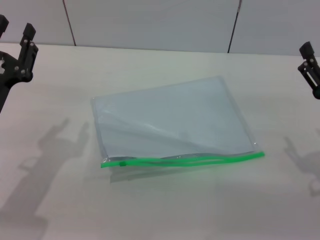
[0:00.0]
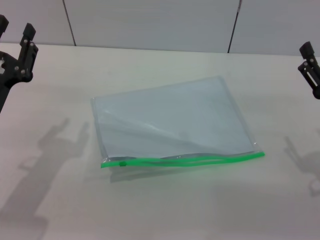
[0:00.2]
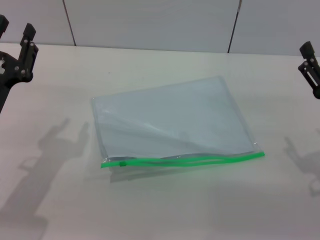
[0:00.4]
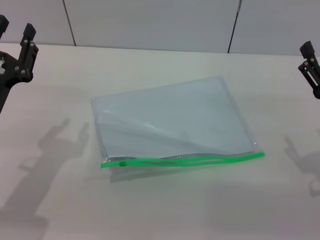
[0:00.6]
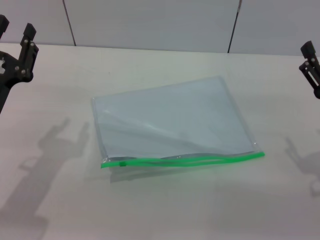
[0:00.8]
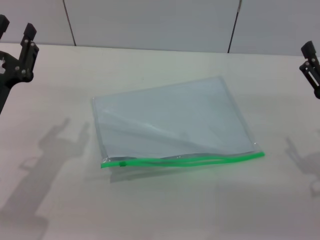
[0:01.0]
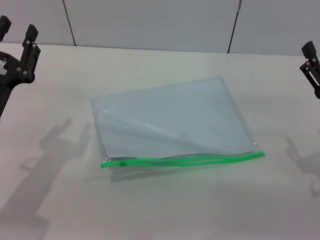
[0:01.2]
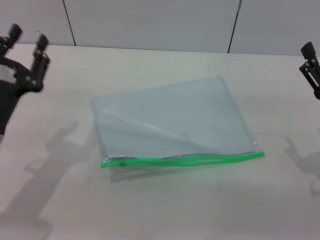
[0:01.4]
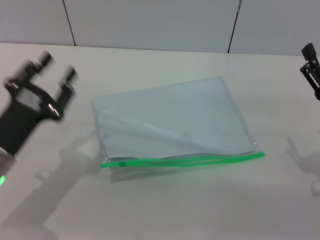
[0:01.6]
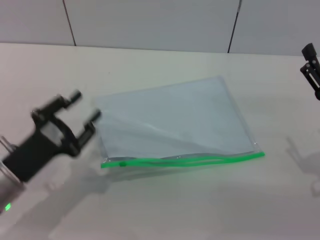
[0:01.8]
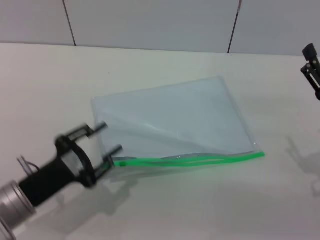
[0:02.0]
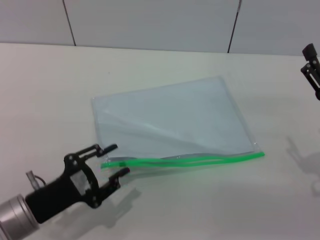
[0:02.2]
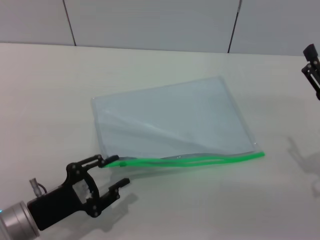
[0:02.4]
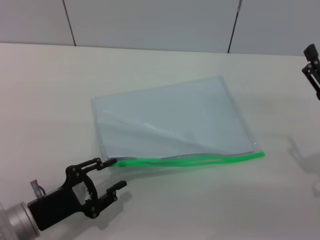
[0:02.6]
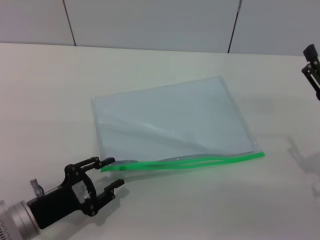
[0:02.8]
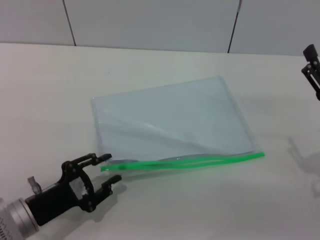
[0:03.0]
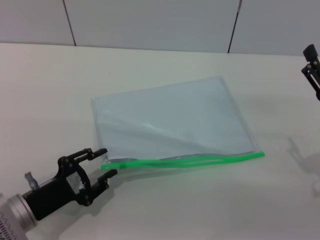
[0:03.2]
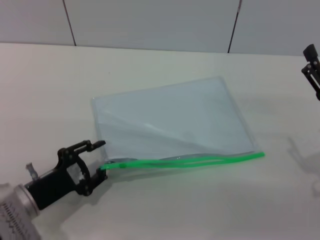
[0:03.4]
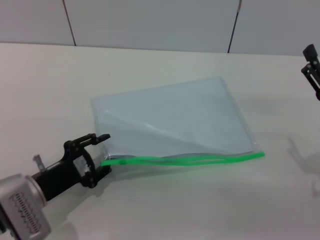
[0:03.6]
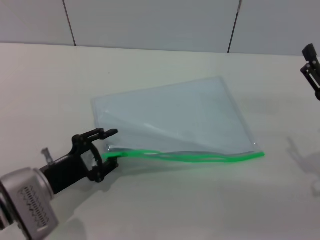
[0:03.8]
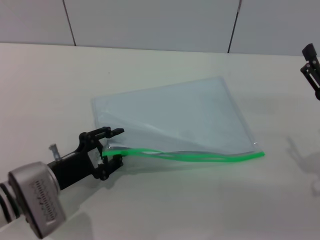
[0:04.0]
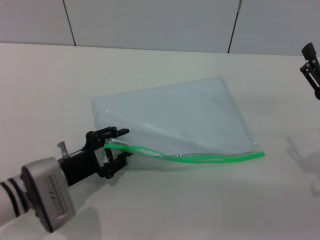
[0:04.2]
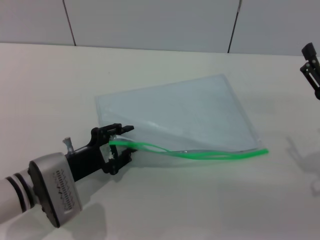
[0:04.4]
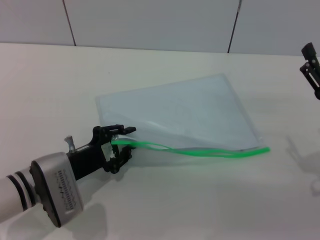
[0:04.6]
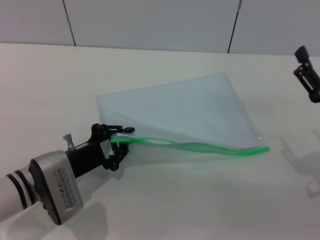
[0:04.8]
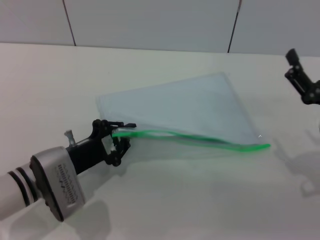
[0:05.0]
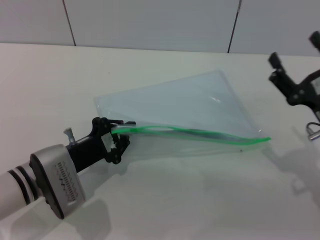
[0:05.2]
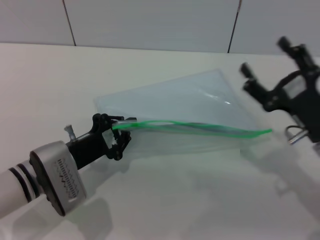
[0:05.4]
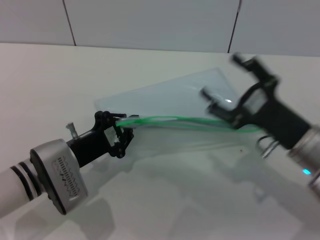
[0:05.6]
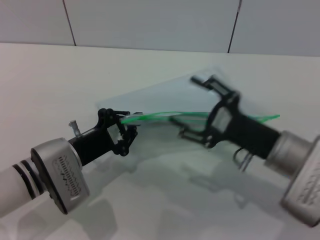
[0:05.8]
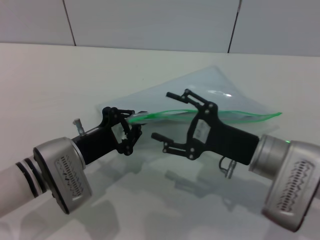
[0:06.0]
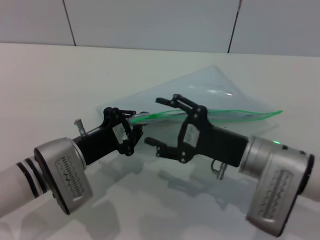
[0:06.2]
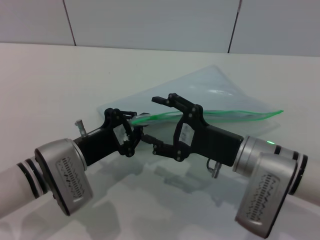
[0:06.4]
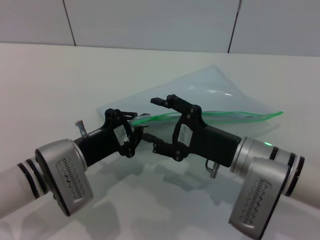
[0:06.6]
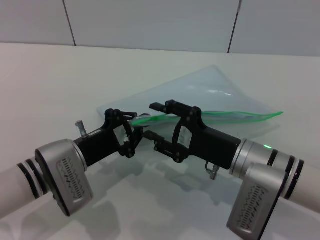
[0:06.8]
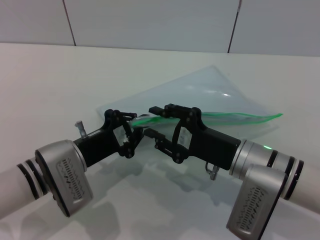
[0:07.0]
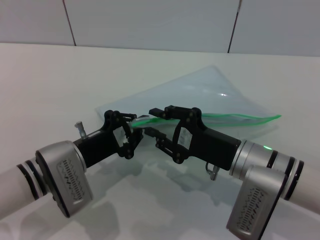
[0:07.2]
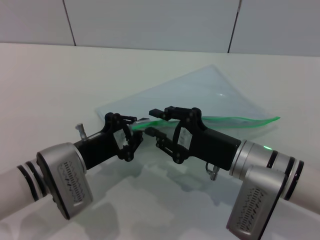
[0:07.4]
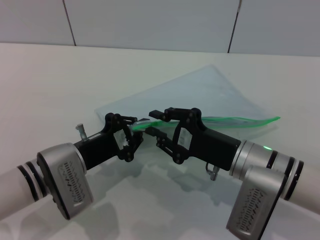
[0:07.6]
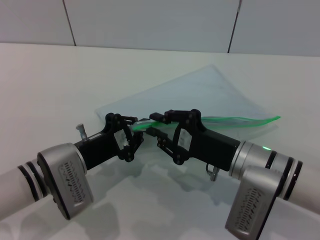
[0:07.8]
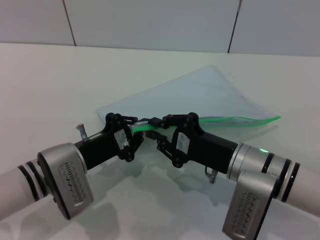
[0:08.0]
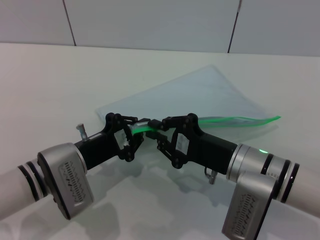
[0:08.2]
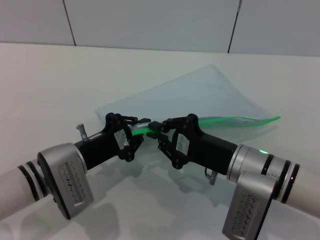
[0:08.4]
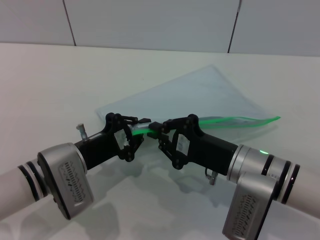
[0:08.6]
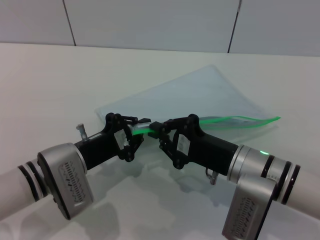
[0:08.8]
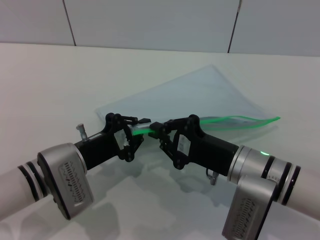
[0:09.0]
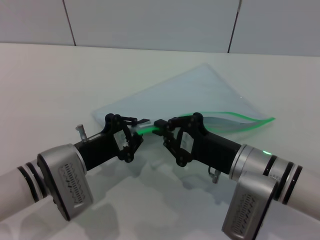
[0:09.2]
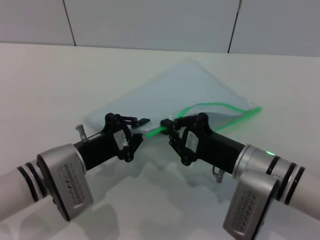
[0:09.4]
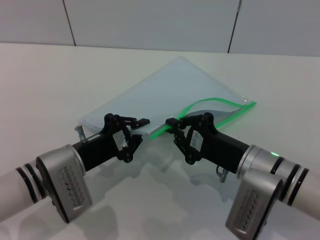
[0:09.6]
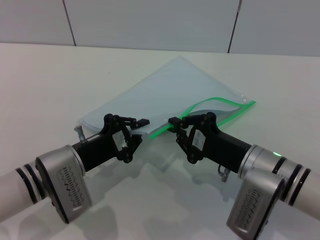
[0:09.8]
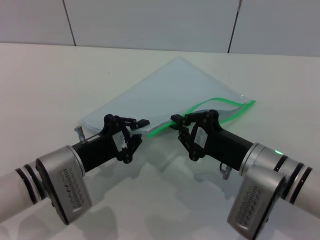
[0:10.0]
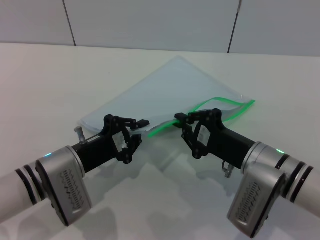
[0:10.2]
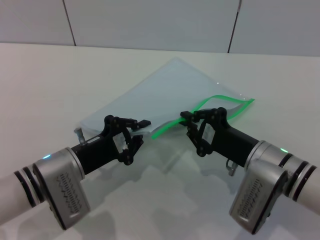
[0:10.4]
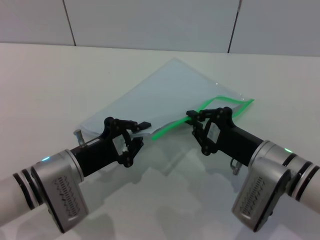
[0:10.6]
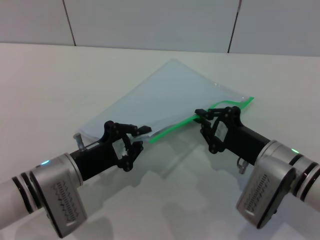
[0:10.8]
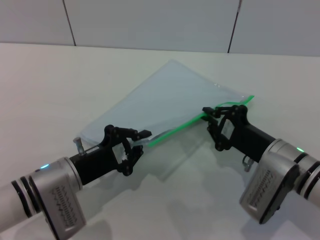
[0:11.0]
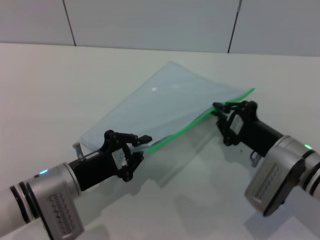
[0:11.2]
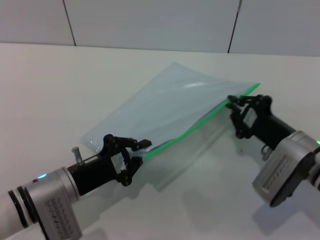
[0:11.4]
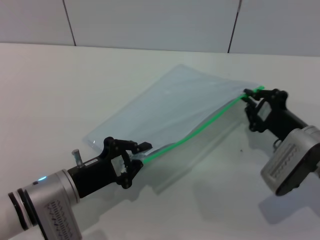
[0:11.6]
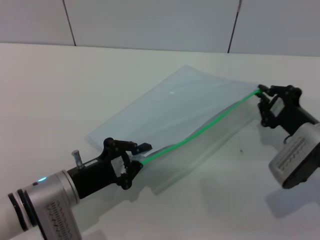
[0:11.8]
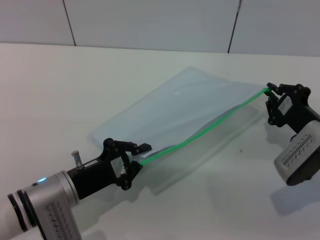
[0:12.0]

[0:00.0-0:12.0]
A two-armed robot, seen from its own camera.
Step, 0:00.0 to 0:05.2: Pick up the transparent plastic bag with the left gripper.
0:00.0 to 0:01.6: There are only small adjustments of the grippers.
0:01.6 to 0:03.0: The left gripper shifts roughly 5 cm downward.
0:03.0 to 0:04.4: The left gripper moves forward, some 5 cm.
0:04.4 to 0:06.0: The right gripper heads to the left, covering some 10 cm, while the left gripper closes its fingers.
0:06.0 to 0:07.6: The right gripper closes its fingers.
0:07.6 to 0:09.0: The right gripper closes.
0:09.0 to 0:10.4: The grippers stay close to where they were, moving slightly.
0:10.4 to 0:12.0: The right gripper travels to the right by approximately 10 cm.

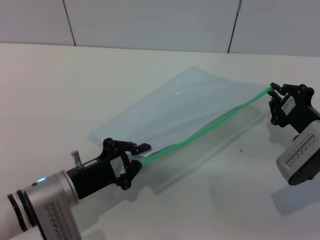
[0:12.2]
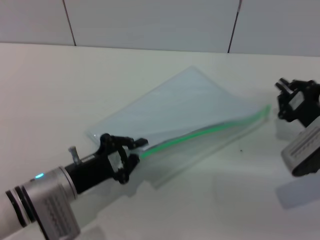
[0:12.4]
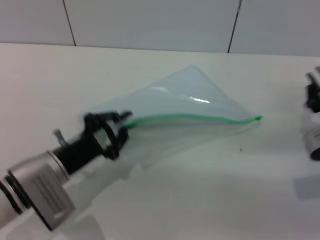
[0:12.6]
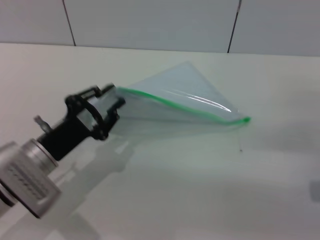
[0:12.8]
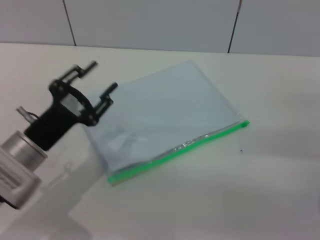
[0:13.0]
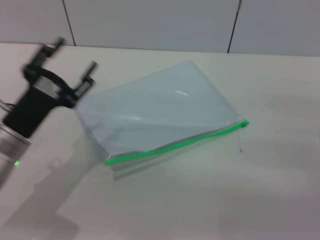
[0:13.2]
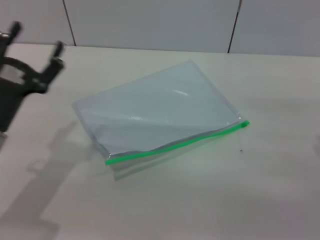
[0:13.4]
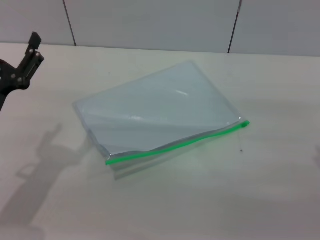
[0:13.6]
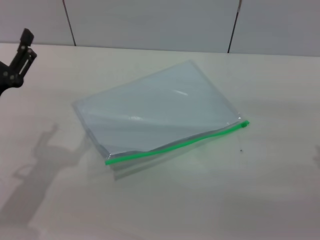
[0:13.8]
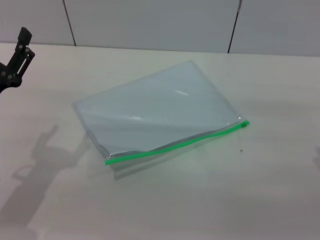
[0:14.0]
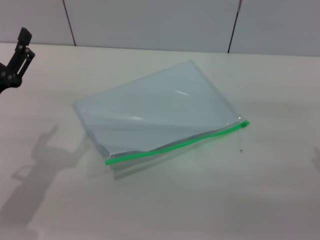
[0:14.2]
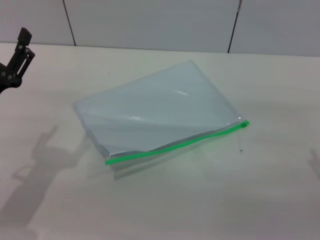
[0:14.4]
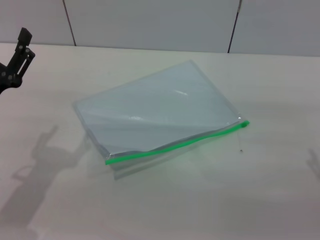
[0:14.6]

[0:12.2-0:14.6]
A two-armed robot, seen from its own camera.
Step, 0:12.8 to 0:13.2: Place the transparent plastic bag.
0:12.2 to 0:13.4: The right gripper shifts about 5 cm backward, and opens its fingers, while the left gripper moves to the left and upward, roughly 10 cm, and opens.
0:13.4 to 0:14.6: The grippers stay close to where they were, moving slightly.
